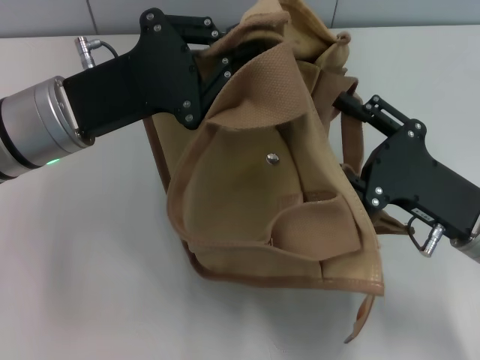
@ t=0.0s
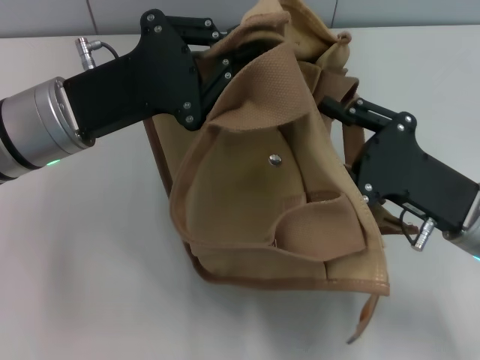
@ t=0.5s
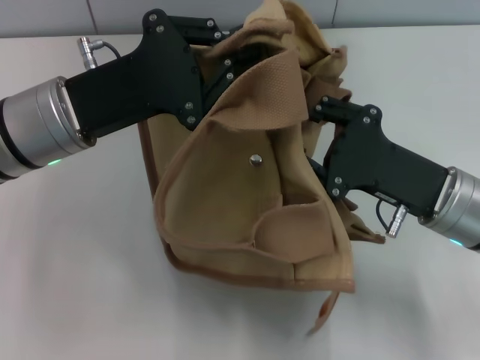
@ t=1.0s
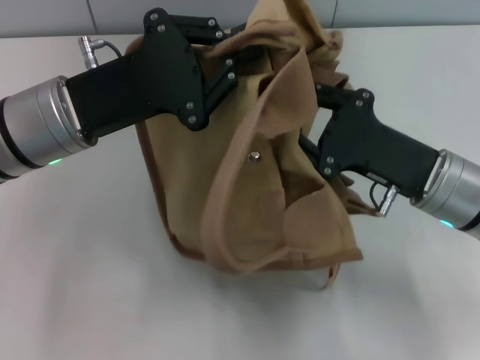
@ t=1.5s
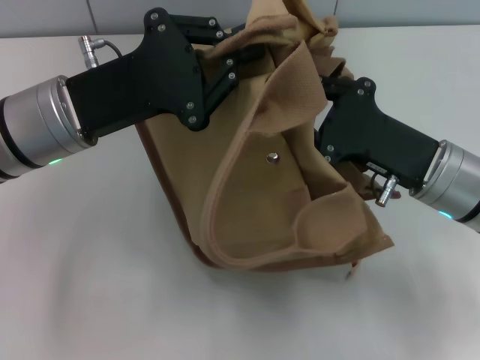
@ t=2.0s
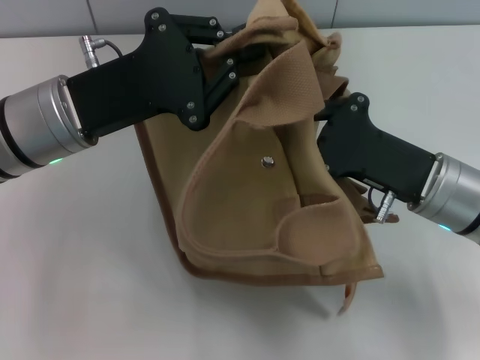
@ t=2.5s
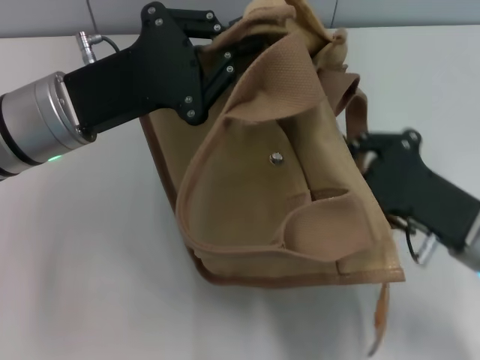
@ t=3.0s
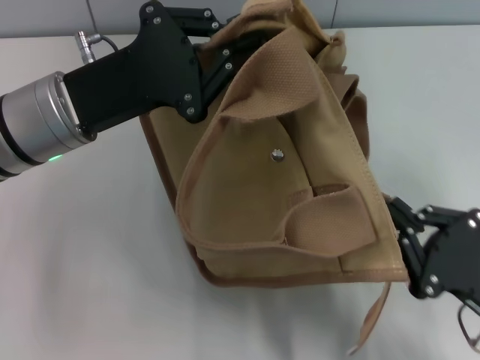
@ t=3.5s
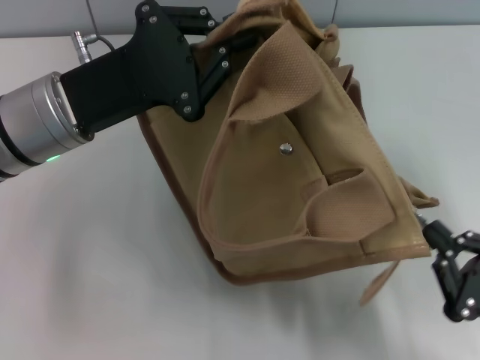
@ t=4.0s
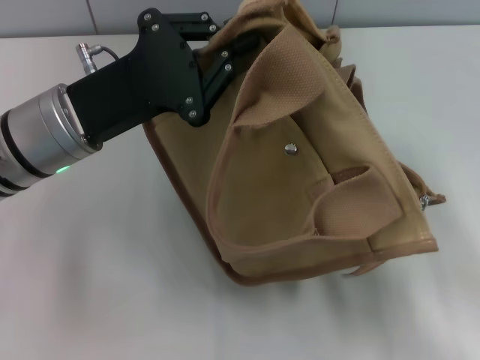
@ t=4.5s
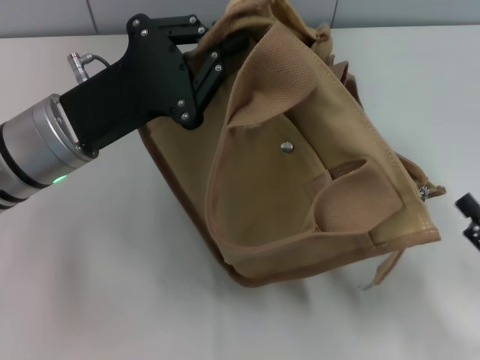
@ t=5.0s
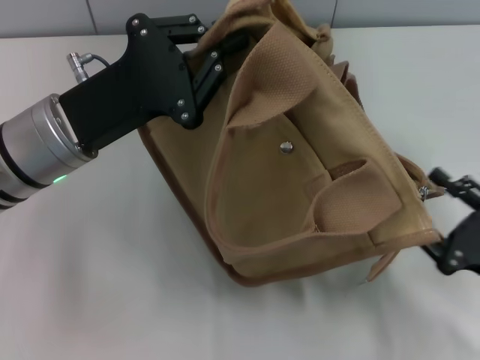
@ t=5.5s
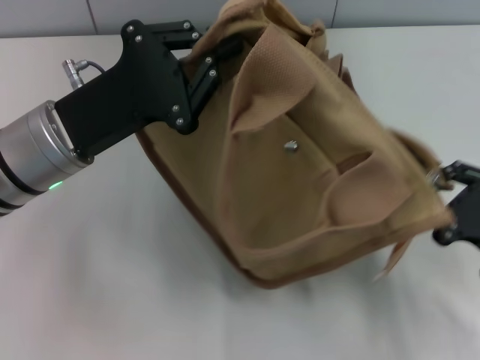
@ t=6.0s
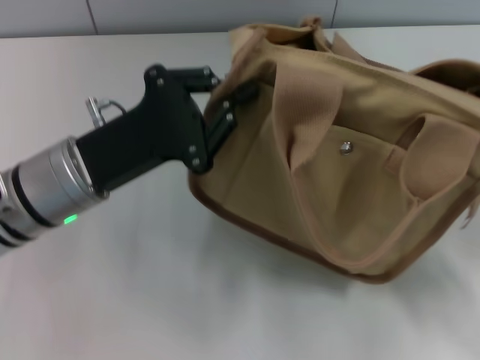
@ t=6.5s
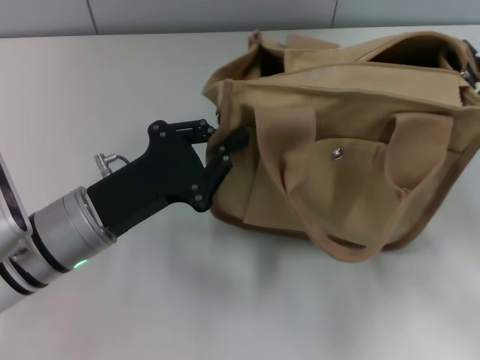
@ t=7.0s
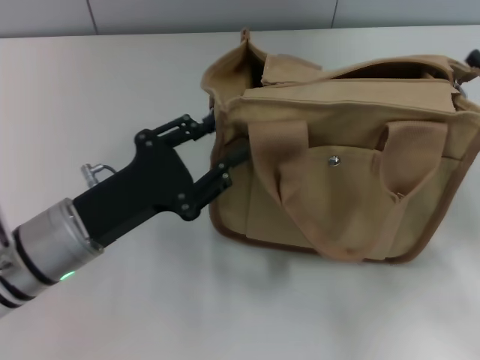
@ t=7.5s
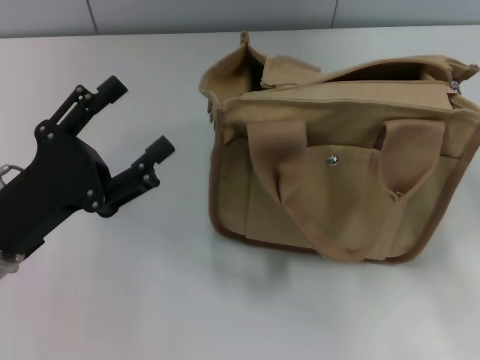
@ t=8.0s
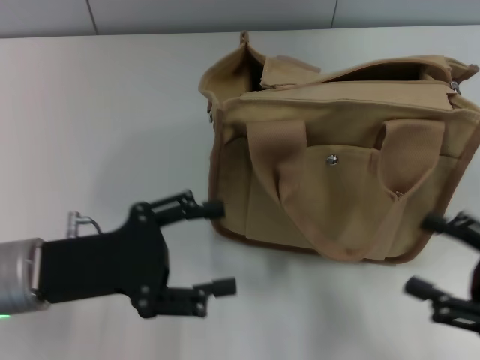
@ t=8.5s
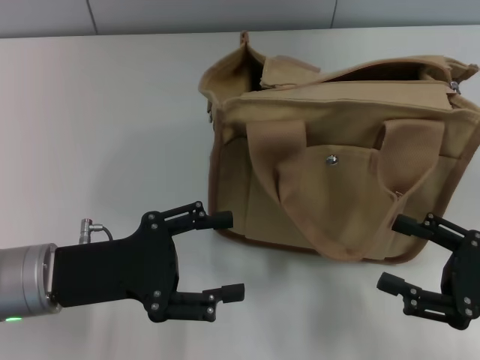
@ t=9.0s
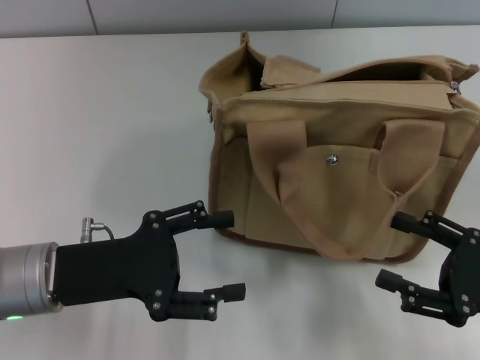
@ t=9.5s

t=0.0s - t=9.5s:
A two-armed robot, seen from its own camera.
Step, t=0.0s - t=4.0s: Pull open the zipper with your right hand.
Step, t=4.5s - t=7.5s: Grab the bag with your left hand.
t=0.0s - t=2.0s: The right gripper moves roughly 5 cm, and closes.
t=2.0s - t=4.0s: The right gripper travels backward and to the right by approximately 20 cm.
t=4.0s - t=5.5s: The right gripper opens up.
t=5.5s - t=7.5s: The right gripper heads forward, covering about 10 cm, and closes and opens again; the left gripper heads downward and backward, covering roughly 10 cm.
t=7.5s - t=9.5s: The right gripper goes some 5 cm backward, and opens its fingers; the left gripper opens its fingers.

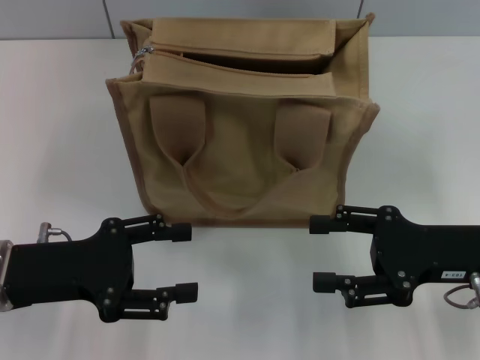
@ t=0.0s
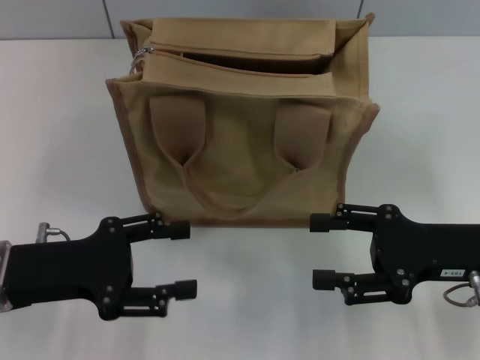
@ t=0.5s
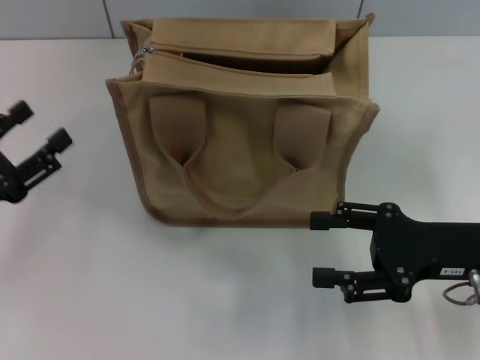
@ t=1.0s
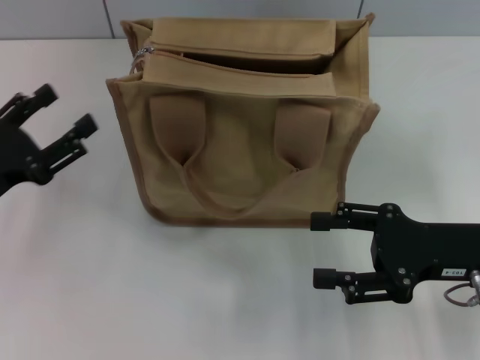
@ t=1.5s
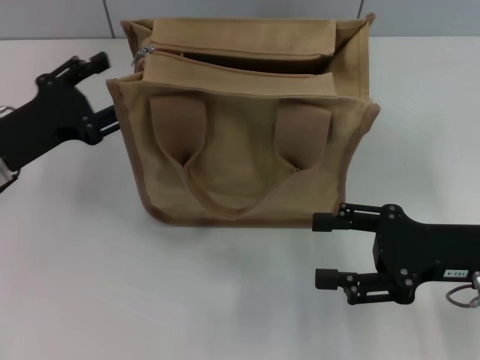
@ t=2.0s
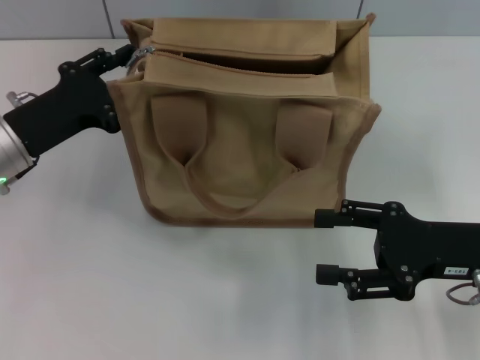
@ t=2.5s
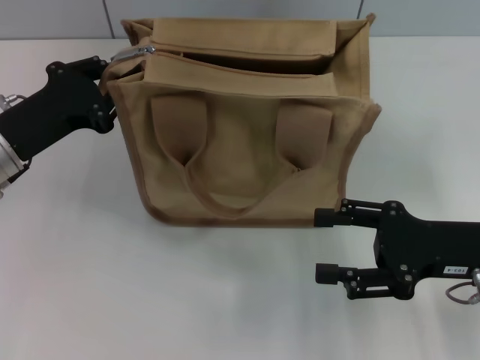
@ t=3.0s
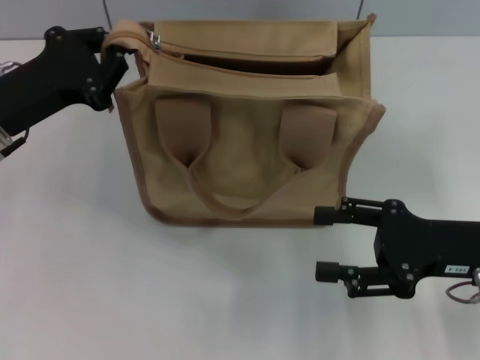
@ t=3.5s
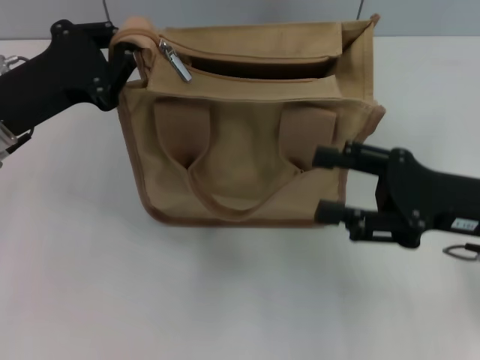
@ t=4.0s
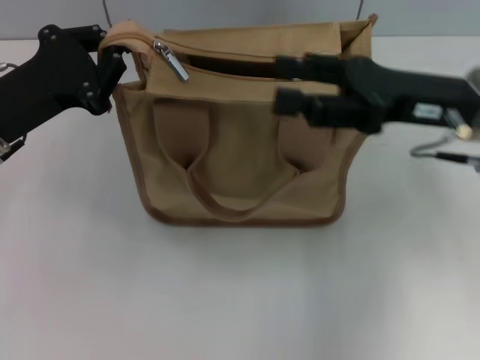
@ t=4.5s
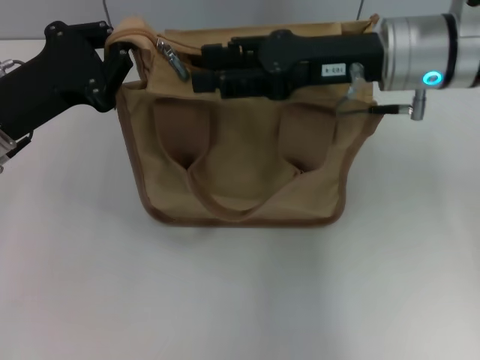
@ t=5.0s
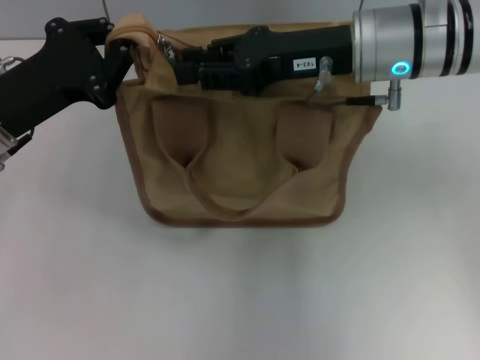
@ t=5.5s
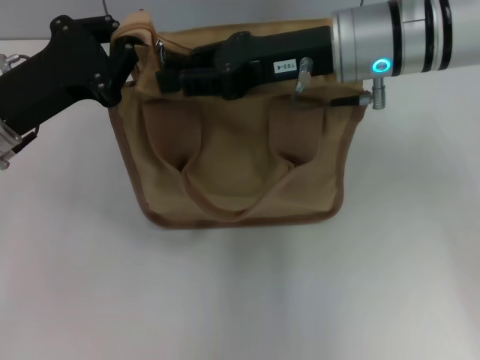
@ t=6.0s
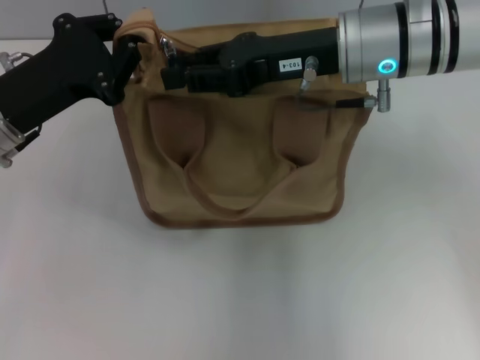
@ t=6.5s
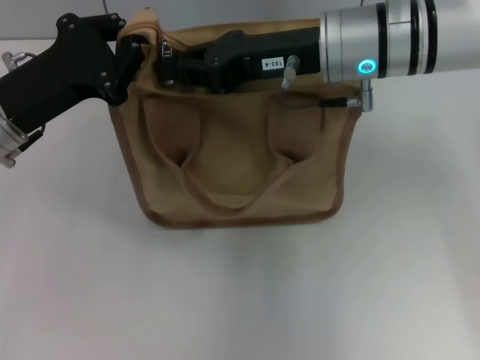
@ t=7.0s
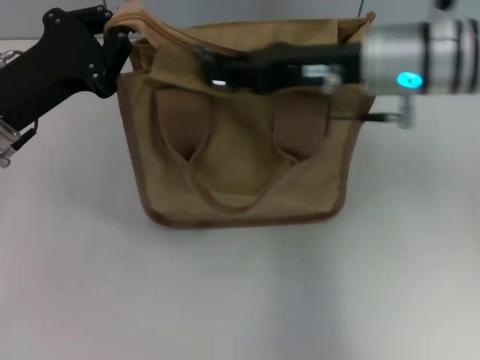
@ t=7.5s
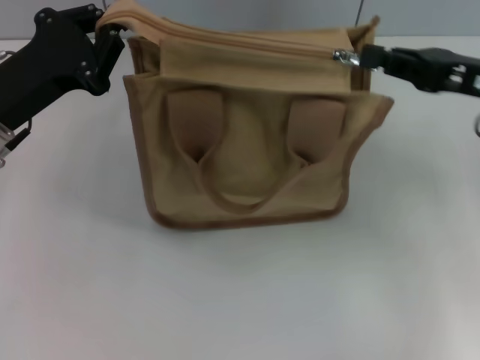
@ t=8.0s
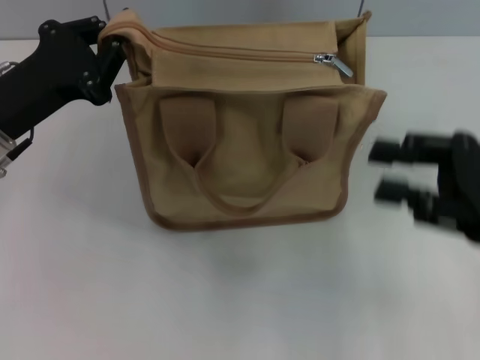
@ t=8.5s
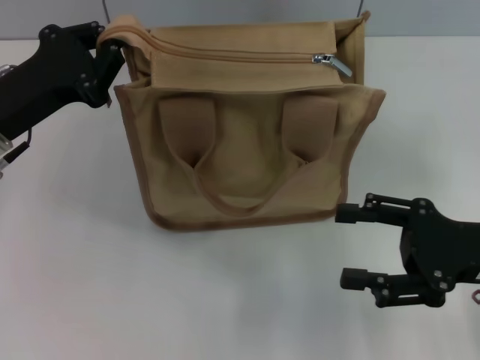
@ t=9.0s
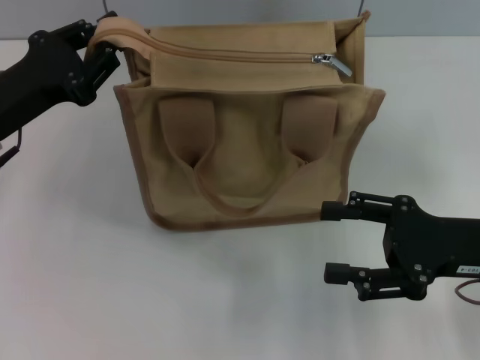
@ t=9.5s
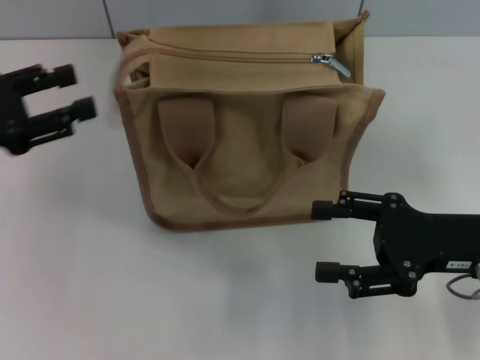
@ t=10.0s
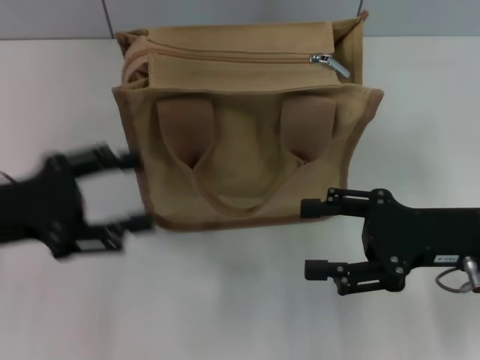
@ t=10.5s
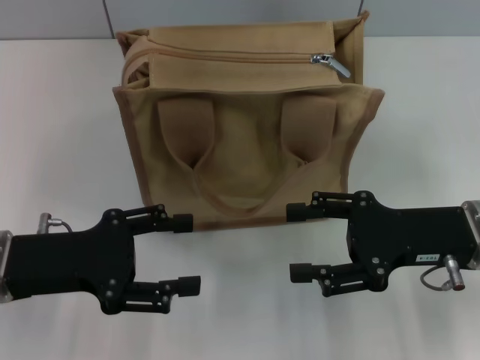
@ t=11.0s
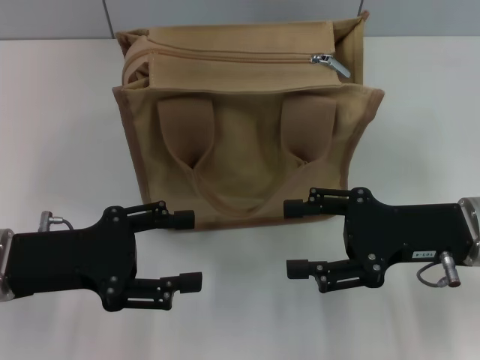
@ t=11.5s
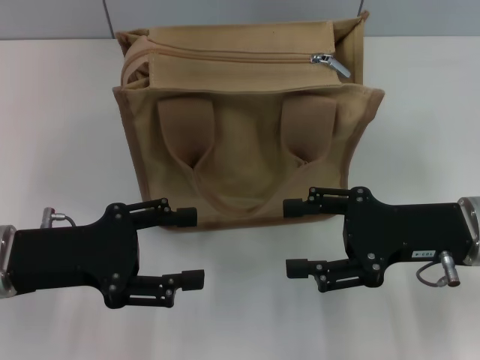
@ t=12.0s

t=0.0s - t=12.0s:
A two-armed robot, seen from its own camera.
Step, t=0.0s - t=8.0s: Pull up the zipper with your right hand.
Step, t=8.5s - t=9.5s: Grab the zipper with your left hand.
t=0.0s - t=2.0s: The left gripper moves forward, approximately 5 cm.
t=2.0s - t=4.0s: The left gripper closes its fingers.
t=4.0s - t=6.0s: The right gripper moves to the left, forward and upward, about 20 cm, and closes.
t=6.0s - t=8.0s: The right gripper goes about 15 cm to the right.
t=8.0s - t=10.0s: The right gripper goes approximately 10 cm downward and backward, and opens its fingers. The left gripper moves to the left, approximately 5 cm, and opens up.
t=10.0s - t=12.0s: The left gripper heads to the right and downward, covering about 10 cm, and opens up.

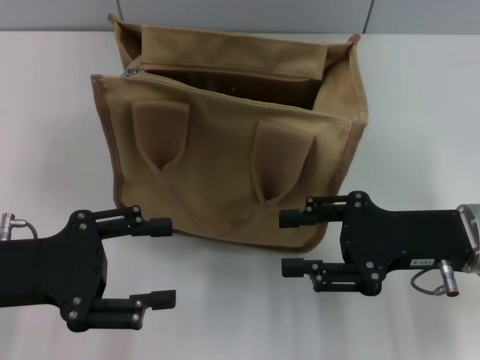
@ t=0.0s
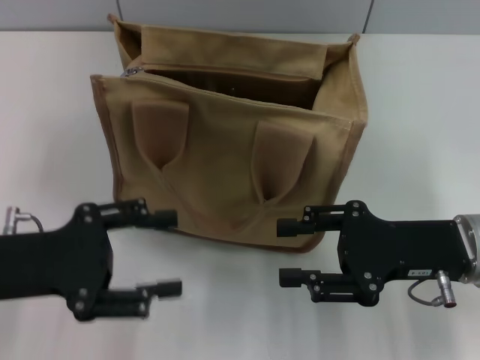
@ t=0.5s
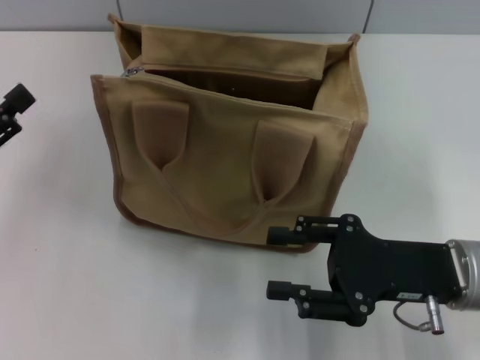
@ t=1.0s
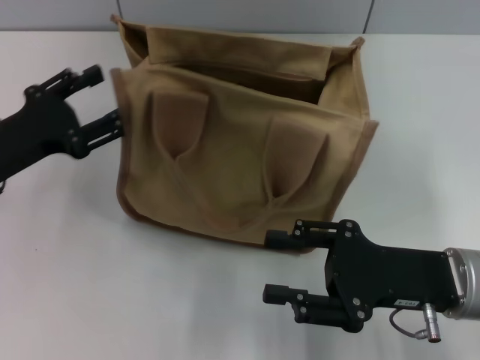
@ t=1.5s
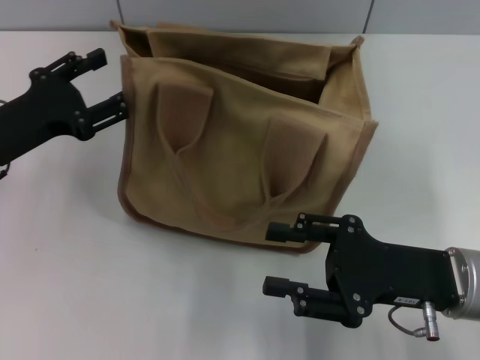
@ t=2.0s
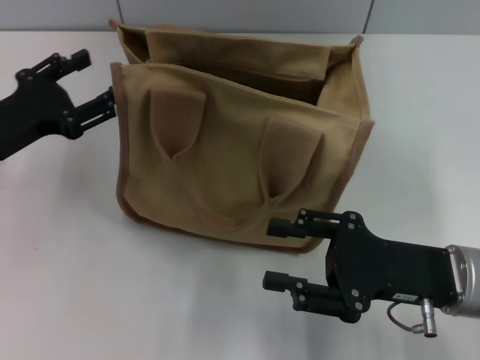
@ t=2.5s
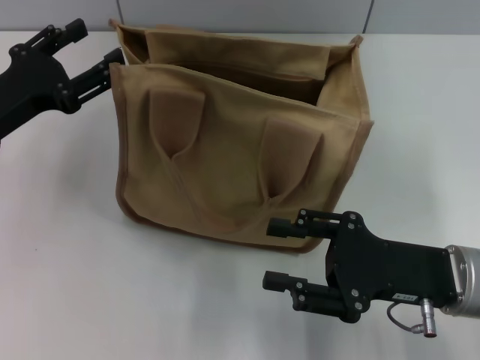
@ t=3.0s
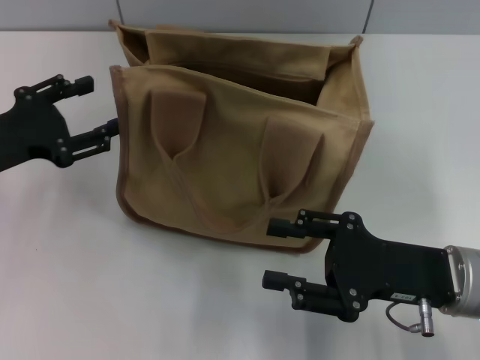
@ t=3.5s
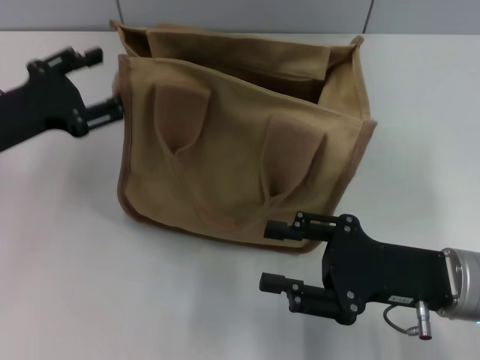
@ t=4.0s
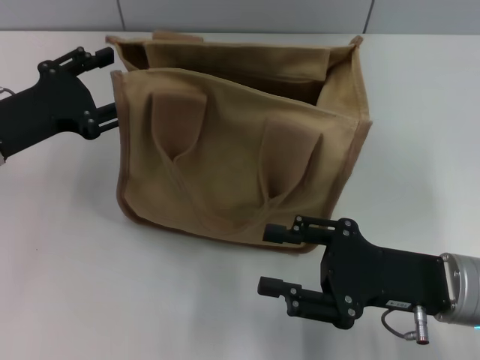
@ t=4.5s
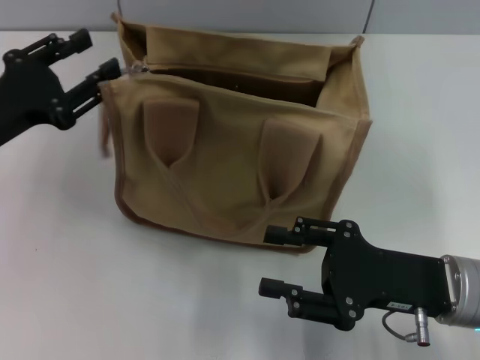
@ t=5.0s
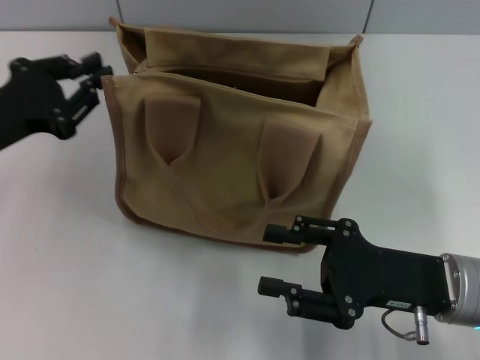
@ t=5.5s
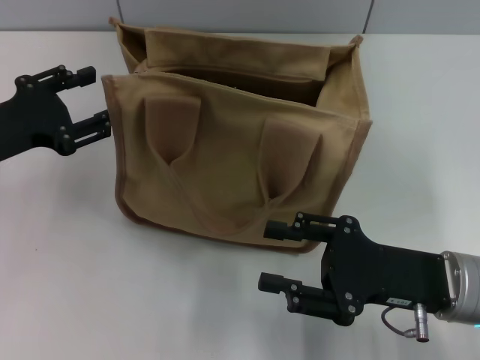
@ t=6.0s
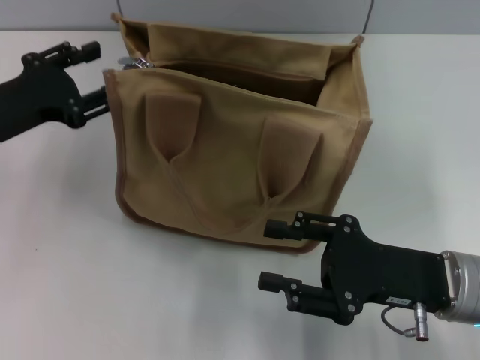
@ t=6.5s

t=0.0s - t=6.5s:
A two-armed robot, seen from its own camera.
t=0.0s - t=2.0s: The left gripper goes some 10 cm forward.
t=2.0s - t=4.5s: There are only small adjustments of the grippers.
t=4.5s - t=6.5s: The left gripper closes, then reopens.
